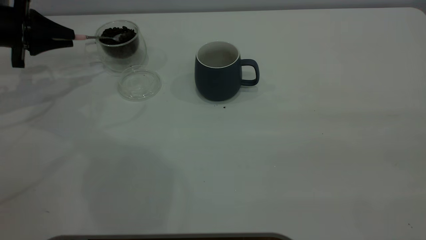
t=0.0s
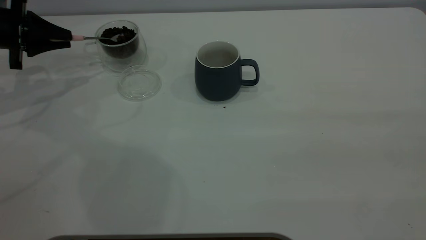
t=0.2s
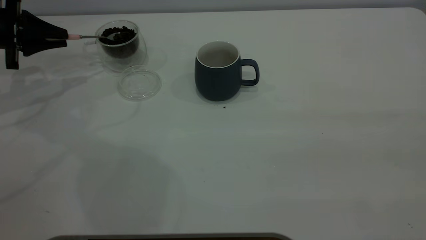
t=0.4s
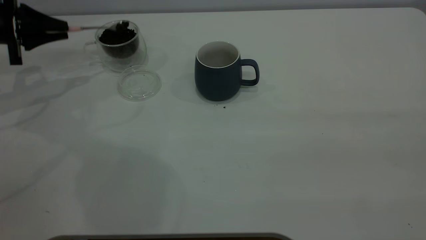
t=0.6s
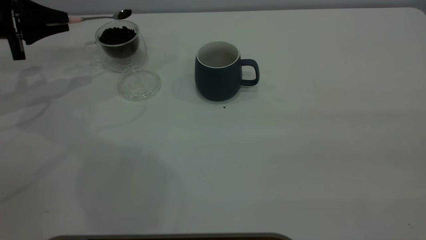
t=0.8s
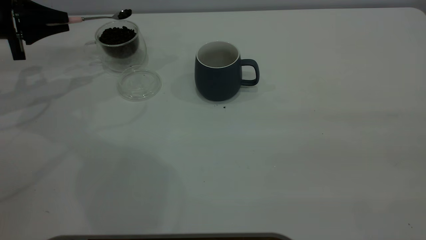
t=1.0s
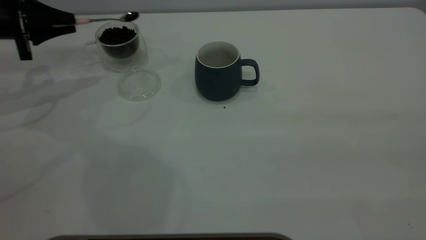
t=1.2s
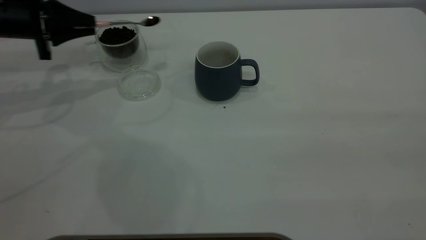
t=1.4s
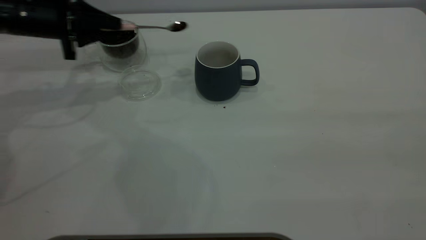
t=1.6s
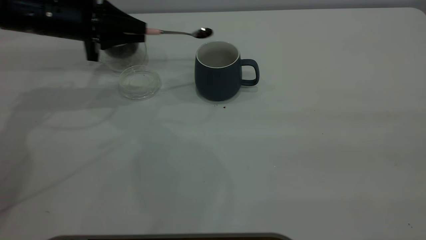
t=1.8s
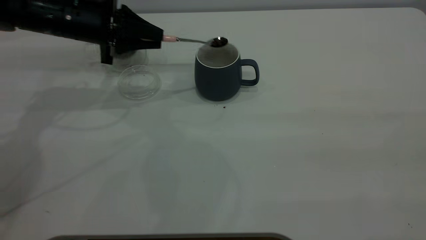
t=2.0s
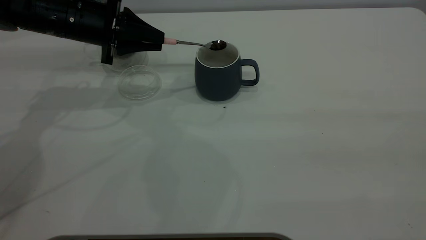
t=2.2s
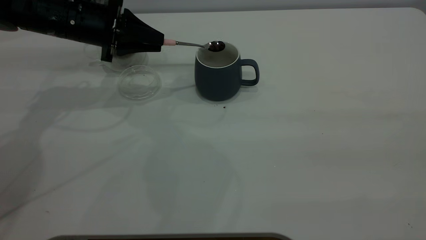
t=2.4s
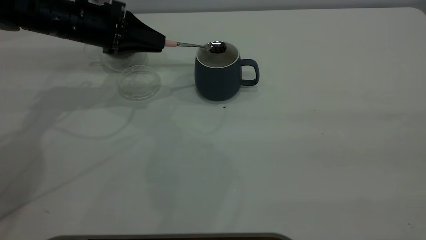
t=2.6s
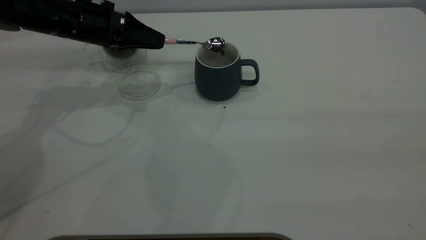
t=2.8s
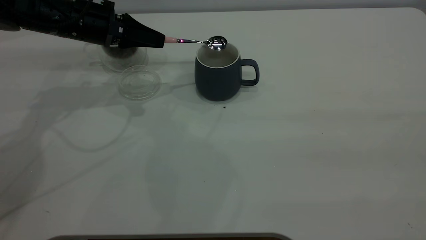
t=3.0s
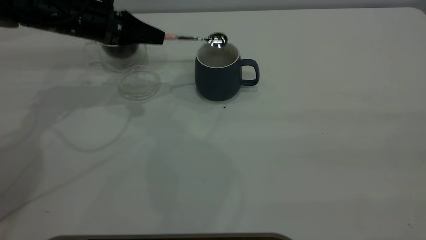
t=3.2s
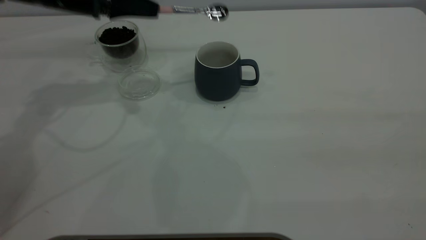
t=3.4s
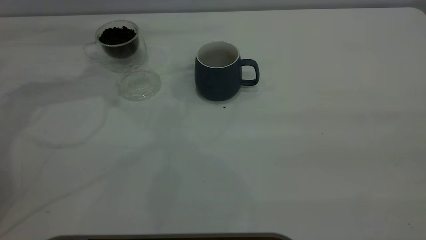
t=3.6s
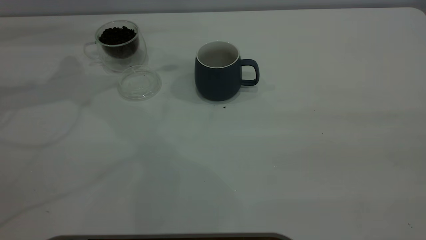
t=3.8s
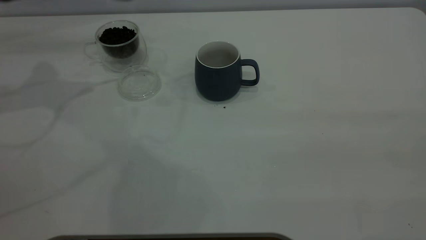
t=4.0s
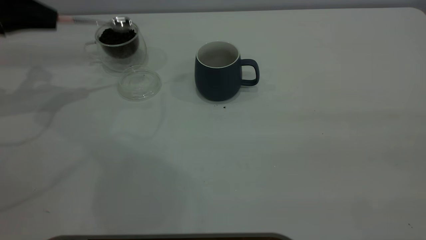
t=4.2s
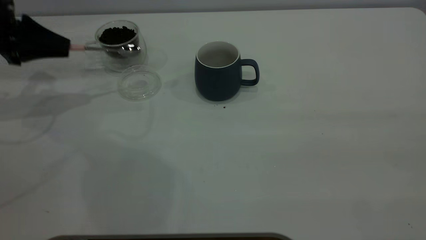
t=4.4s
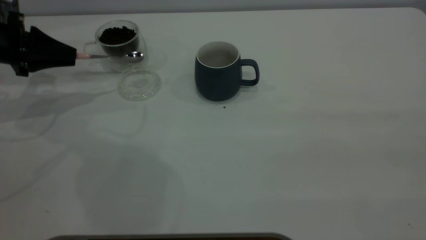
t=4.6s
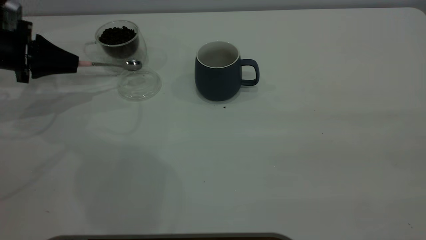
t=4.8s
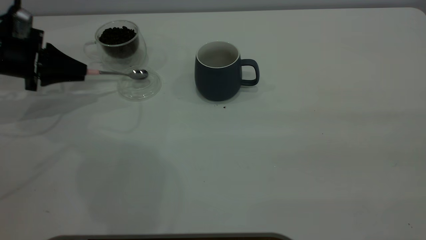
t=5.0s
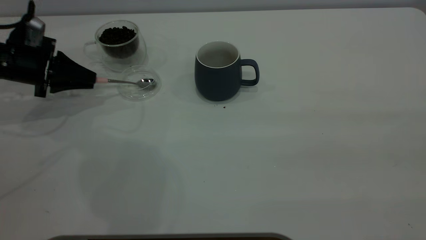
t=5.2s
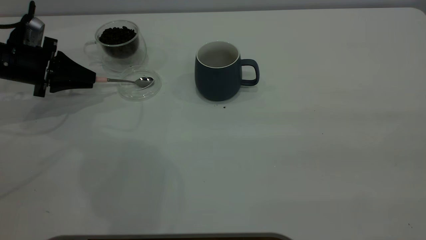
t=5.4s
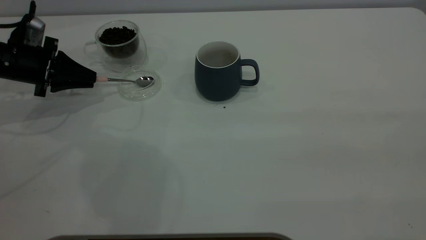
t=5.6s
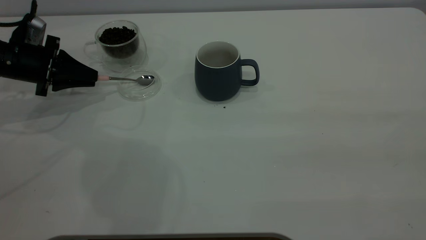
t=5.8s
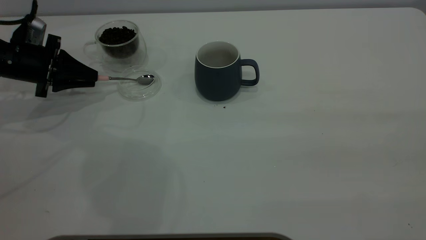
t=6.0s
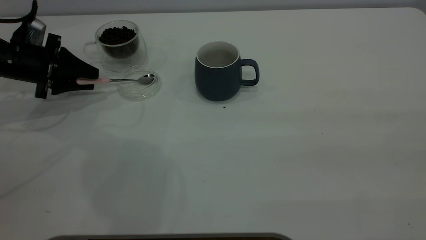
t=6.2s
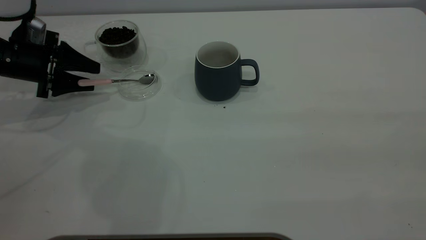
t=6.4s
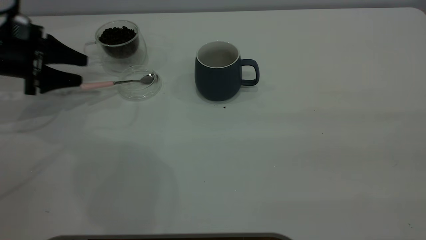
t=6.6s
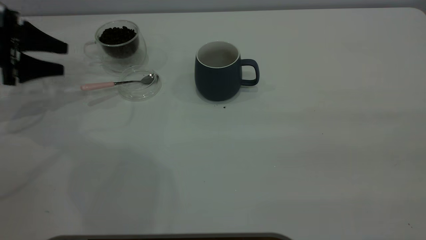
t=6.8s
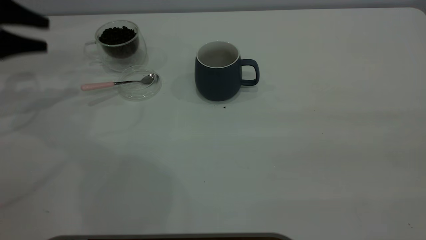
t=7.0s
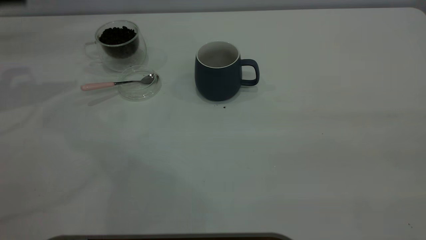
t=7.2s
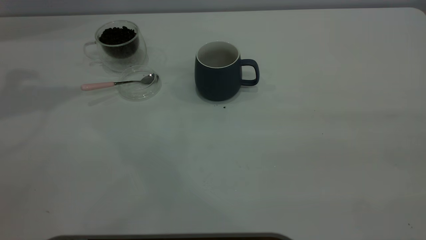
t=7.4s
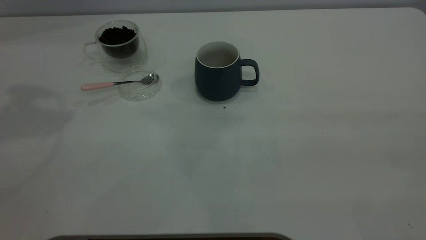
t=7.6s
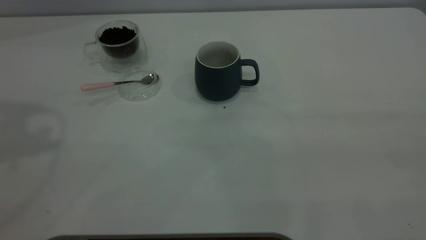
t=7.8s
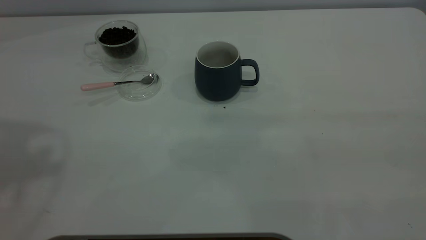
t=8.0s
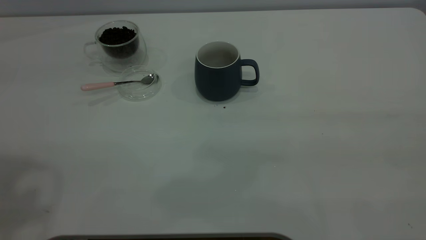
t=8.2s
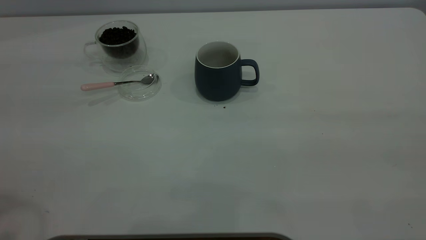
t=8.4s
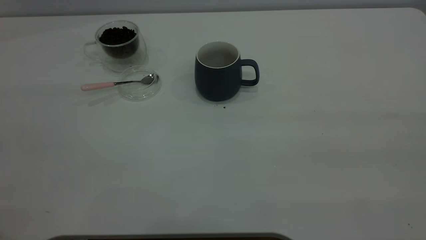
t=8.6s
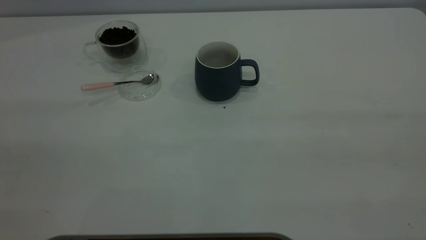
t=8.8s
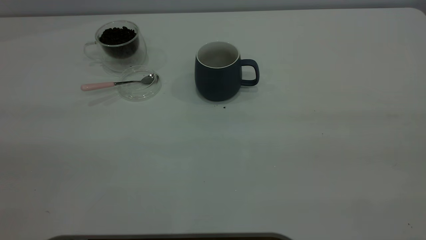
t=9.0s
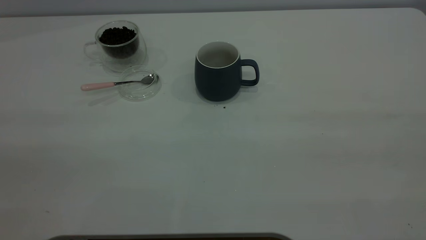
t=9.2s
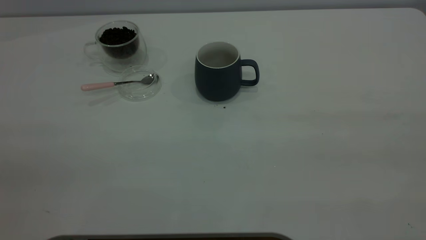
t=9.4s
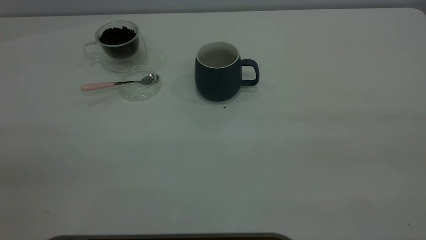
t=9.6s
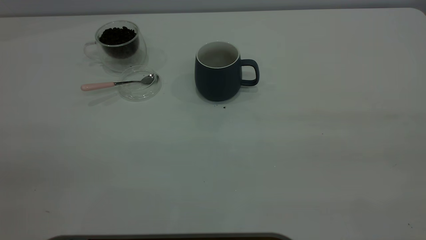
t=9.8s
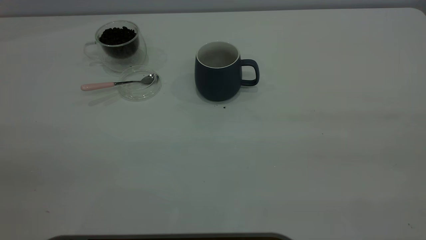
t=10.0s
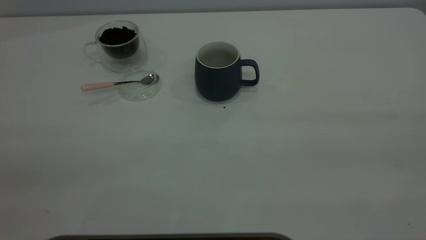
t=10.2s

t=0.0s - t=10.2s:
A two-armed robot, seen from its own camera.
Task of the whole recording: the right gripper place the grey cup in the center of the table, the left gripper take the pink spoon from the cup lid and scoop out the coffee beans from the coffee cup and put them into the grey cup, the left gripper put the spoon back into the cup lid.
Step, t=0.0s - t=3.2s: Scoop a spoonful of beans into the cup.
Step, t=3.4s - t=6.6s: Place the spoon back in its original place.
t=0.0s - t=1.4s: The left gripper heads to the right, covering some 5 cm.
t=1.4s - t=3.0s: The left gripper heads to the right, covering some 10 cm.
t=3.0s - t=4.4s: The left gripper moves to the left, about 15 cm.
t=4.4s - t=5.8s: The left gripper travels downward by approximately 5 cm.
t=5.8s - t=7.2s: The left gripper heads upward, covering some 20 cm, and opens up.

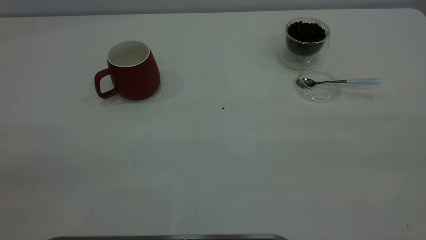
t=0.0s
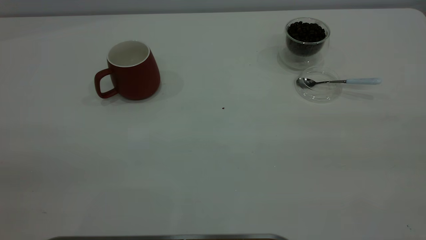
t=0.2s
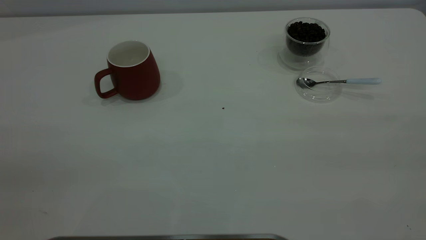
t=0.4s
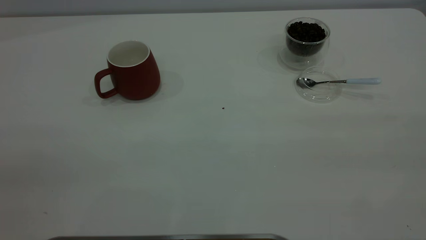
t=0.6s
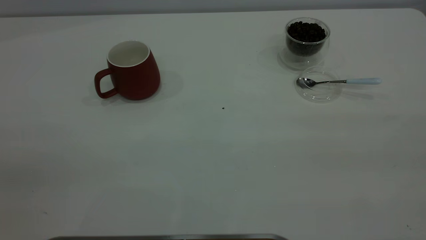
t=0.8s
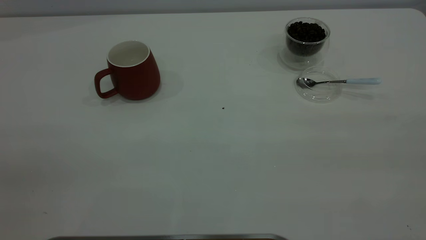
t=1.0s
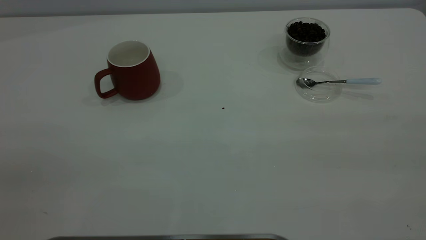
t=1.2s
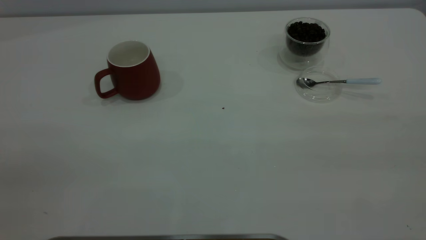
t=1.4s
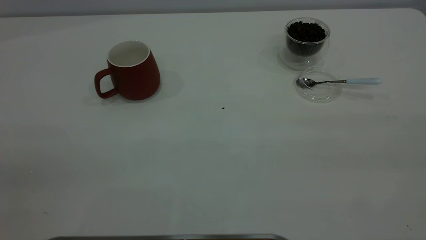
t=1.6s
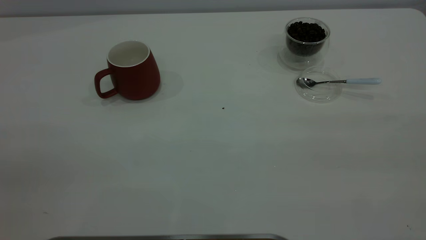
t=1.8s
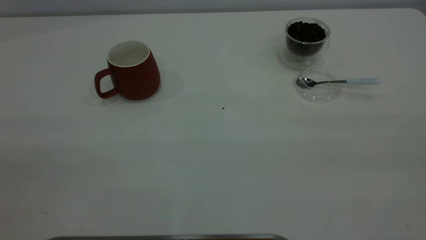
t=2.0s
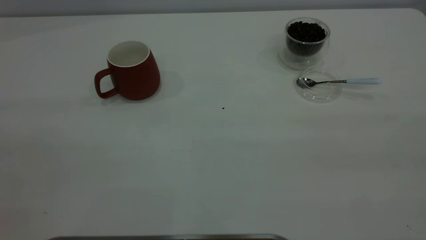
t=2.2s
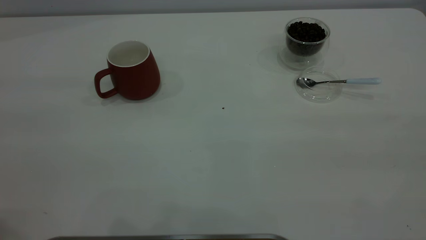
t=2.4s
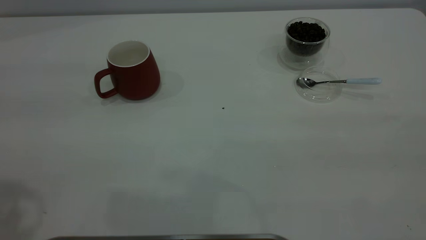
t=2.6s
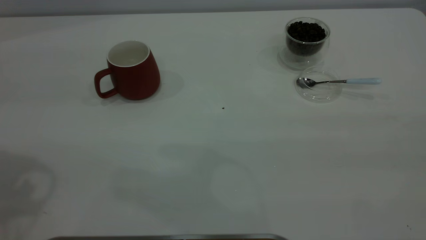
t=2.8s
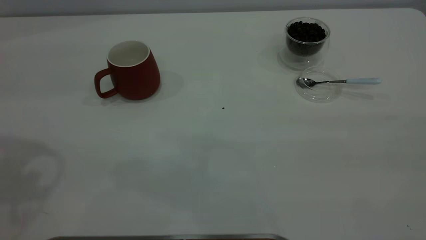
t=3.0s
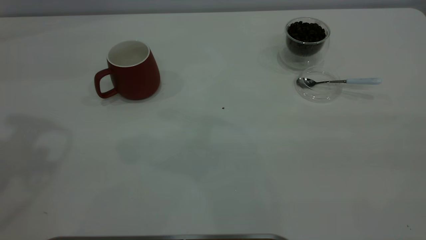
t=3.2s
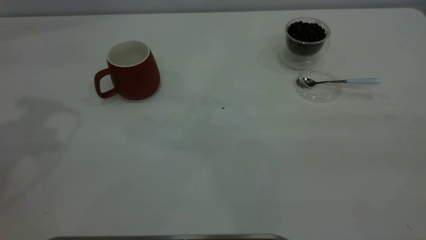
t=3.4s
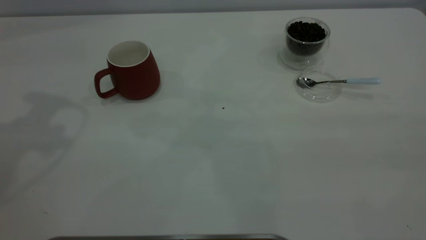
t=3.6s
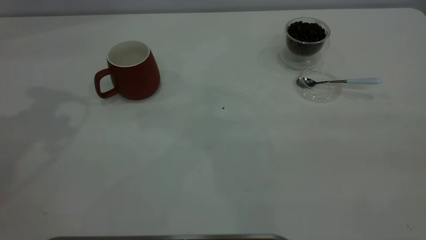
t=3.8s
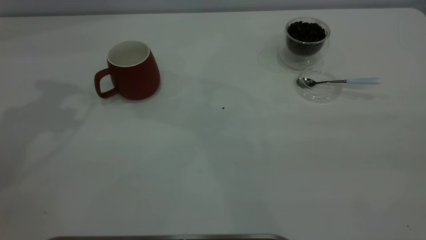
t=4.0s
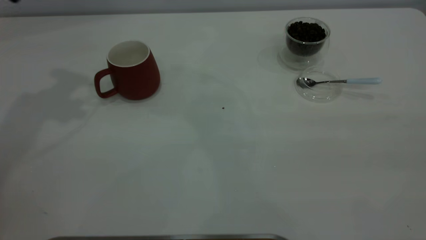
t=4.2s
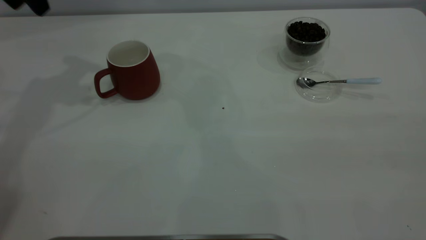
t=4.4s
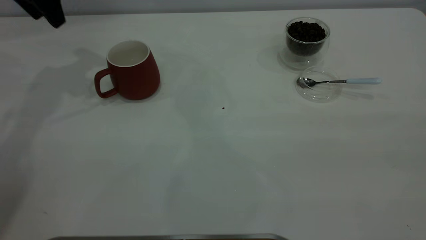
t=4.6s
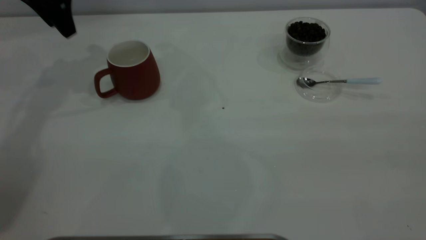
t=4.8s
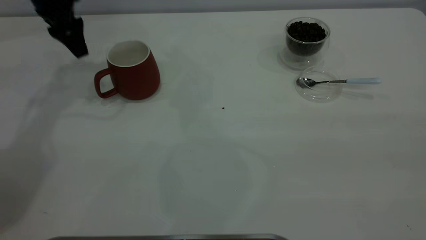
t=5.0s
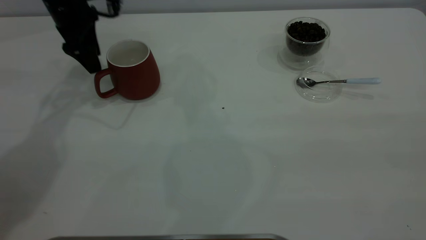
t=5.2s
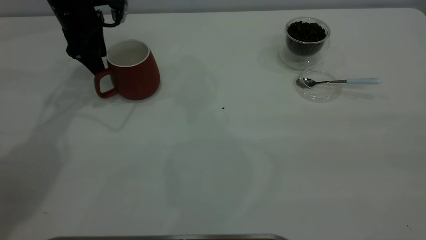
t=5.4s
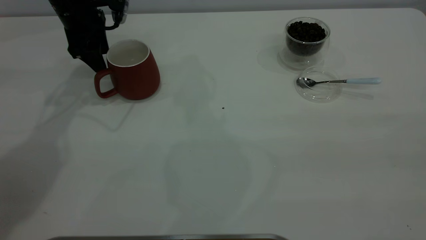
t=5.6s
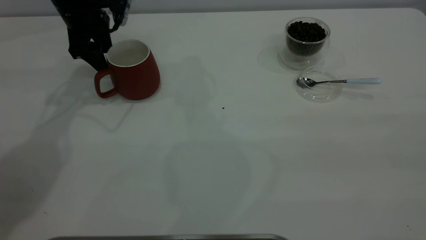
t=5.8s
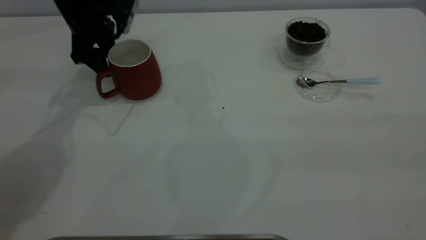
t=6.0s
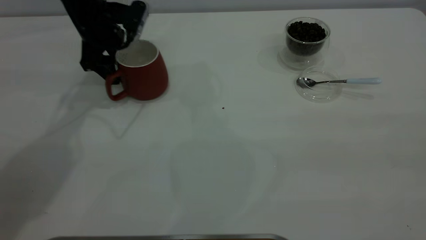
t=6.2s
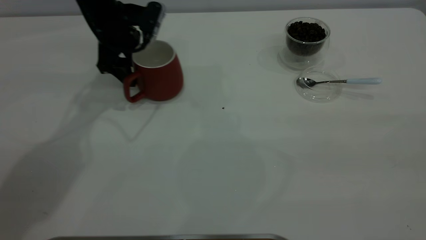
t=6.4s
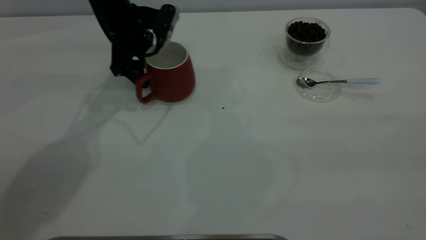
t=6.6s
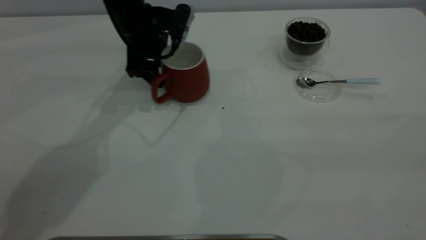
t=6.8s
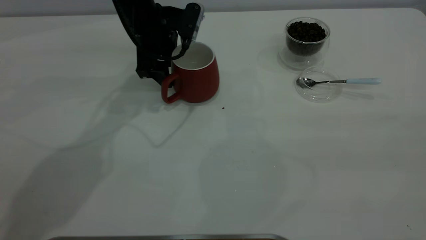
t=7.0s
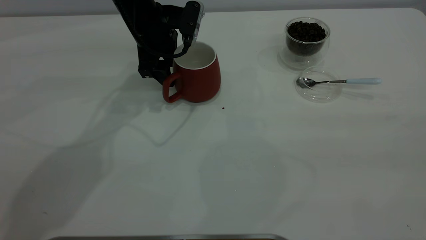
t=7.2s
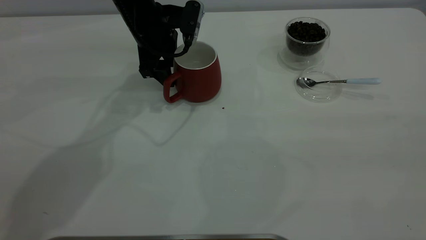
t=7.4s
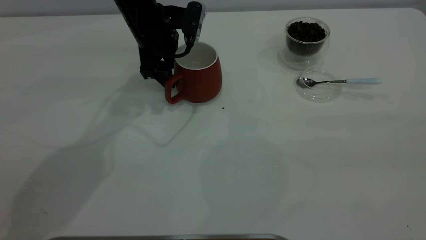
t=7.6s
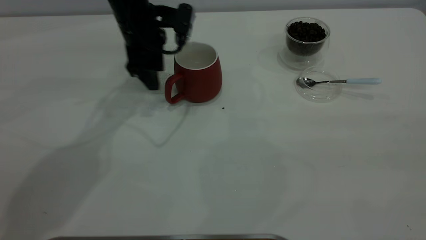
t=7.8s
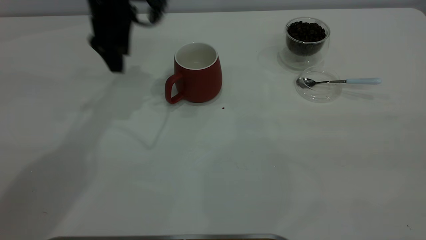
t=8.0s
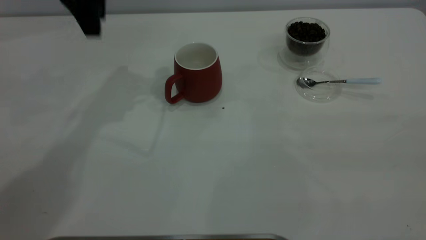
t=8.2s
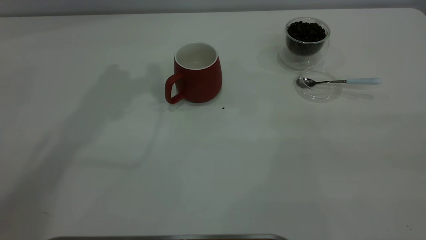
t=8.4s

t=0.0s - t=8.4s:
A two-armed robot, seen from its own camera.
Task of the whole recording: the left gripper place the red cup in the center of the table, the right gripper take the blue spoon from the cup lid and scoop out the coffee beans from the coffee cup and put them into the red cup, the right gripper put the spoon back into the cup lid.
Step, t=0.0s - t=7.8s: Move the cup to the center of view.
t=0.0s - t=1.4s: Neither gripper changes place.
t=4.2s - t=5.6s: The left gripper shifts roughly 20 cm downward and forward.
t=5.6s - t=7.0s: The left gripper goes approximately 10 cm to the right.
t=7.0s - t=8.4s: The left gripper moves upward, approximately 25 cm.
